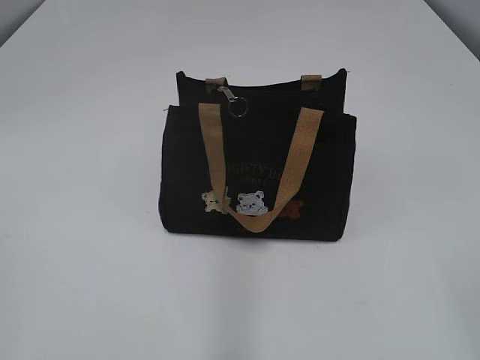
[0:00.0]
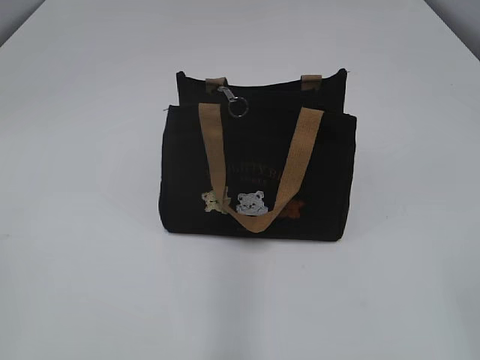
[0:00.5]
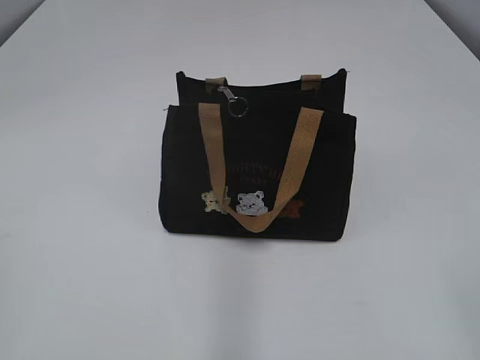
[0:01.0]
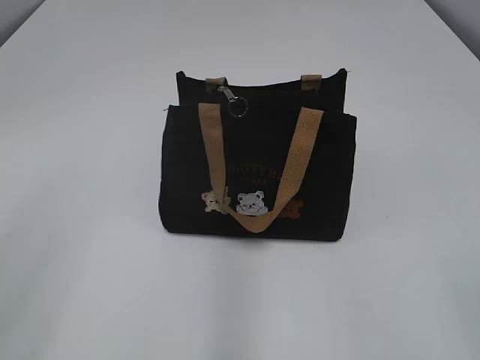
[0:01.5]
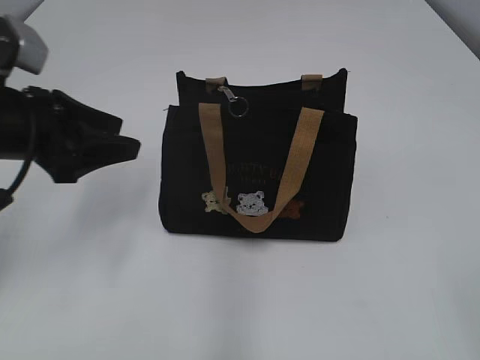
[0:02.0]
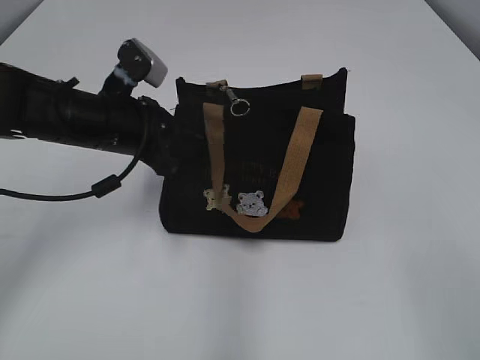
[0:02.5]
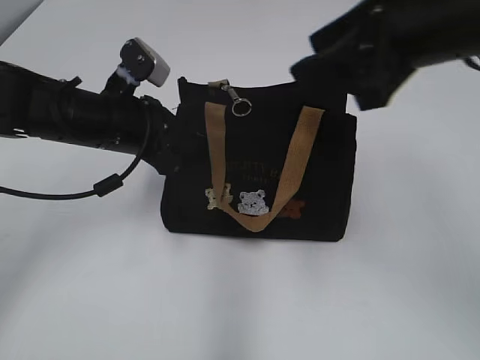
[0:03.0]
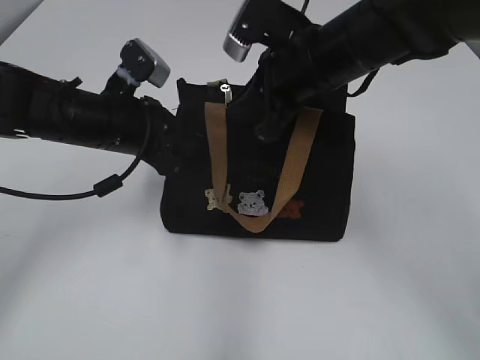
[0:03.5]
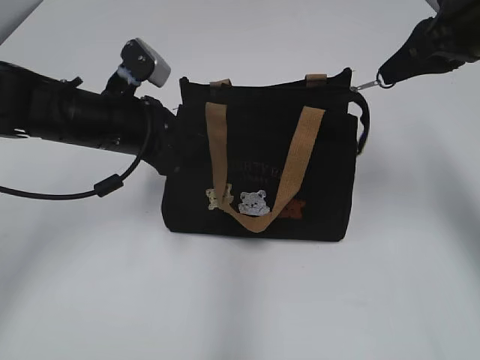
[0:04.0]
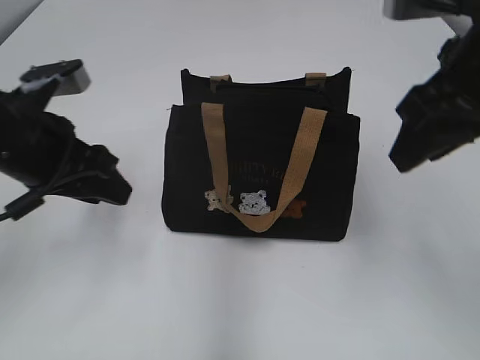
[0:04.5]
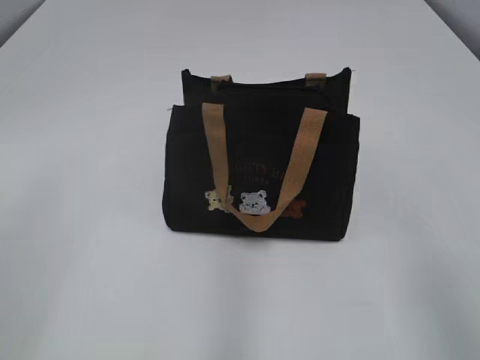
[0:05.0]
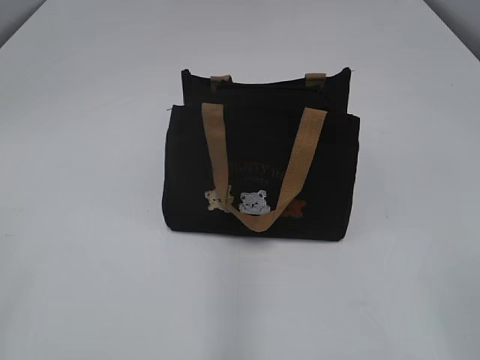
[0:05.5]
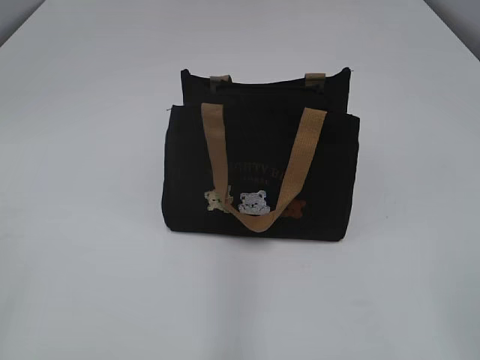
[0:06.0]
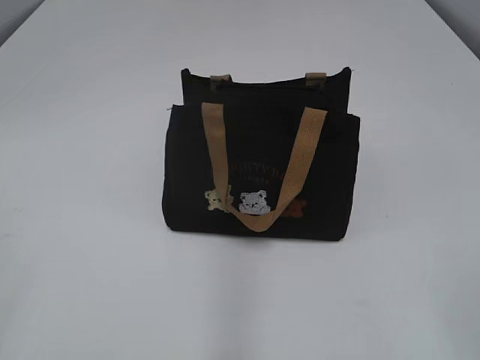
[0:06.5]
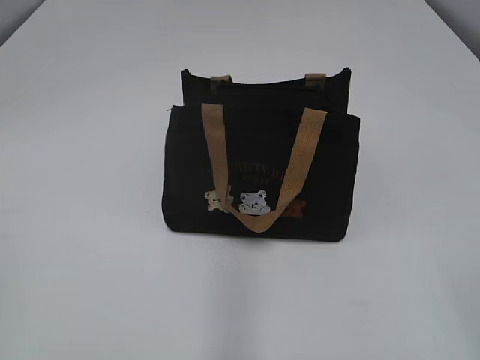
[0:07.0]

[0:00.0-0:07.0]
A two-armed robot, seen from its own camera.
Step, 0:00.0 to 0:04.0: Pull open the zipper with your right hand.
0:02.0 to 0:03.5: The left gripper travels forward, to the right and downward by about 15 cm, and closes its fingers. Meanwhile the right gripper is displaced forward and to the left by roughly 40 cm.
0:03.5 to 0:05.0: The right gripper heads backward and to the right, covering some 25 cm, and closes, then reopens; the left gripper moves backward, upward and to the left, roughly 25 cm, and opens its fingers.
